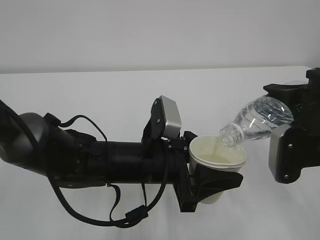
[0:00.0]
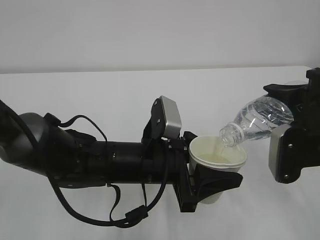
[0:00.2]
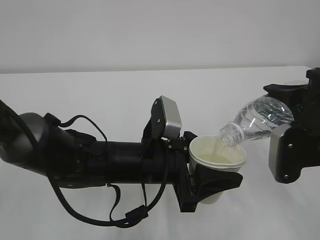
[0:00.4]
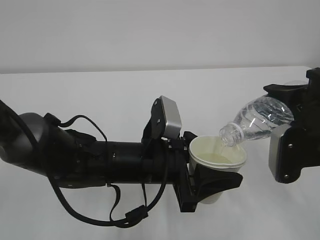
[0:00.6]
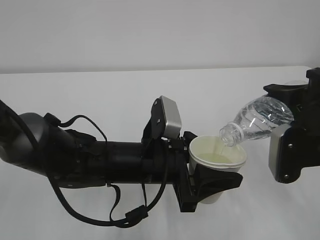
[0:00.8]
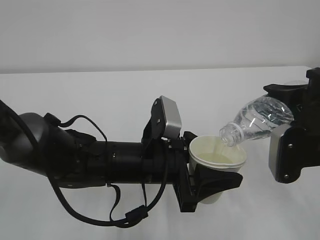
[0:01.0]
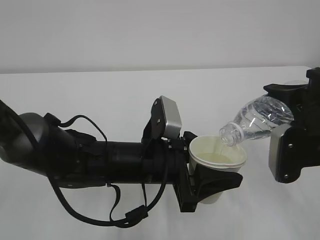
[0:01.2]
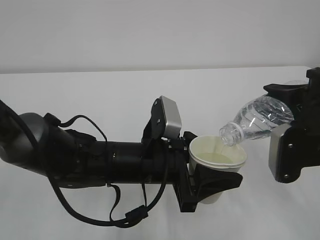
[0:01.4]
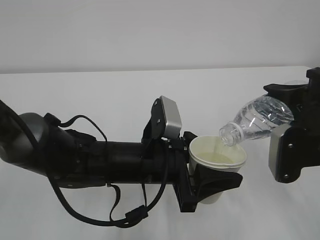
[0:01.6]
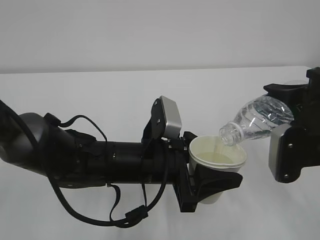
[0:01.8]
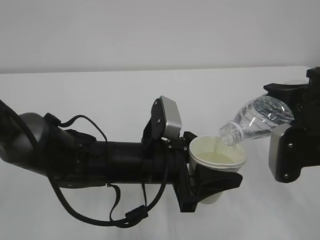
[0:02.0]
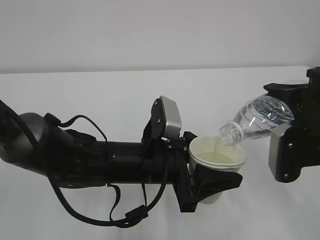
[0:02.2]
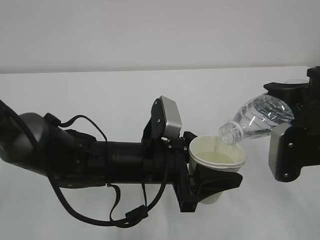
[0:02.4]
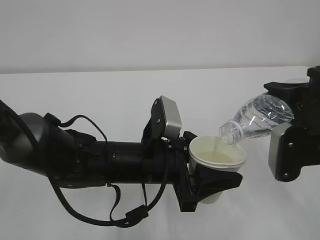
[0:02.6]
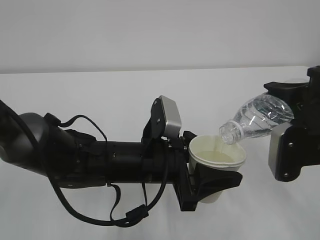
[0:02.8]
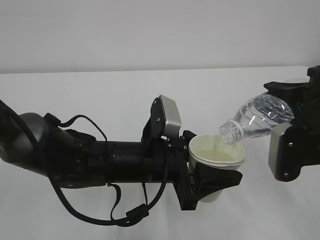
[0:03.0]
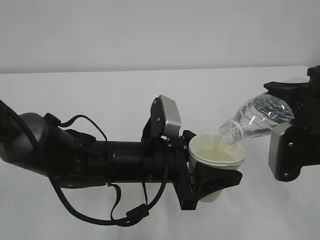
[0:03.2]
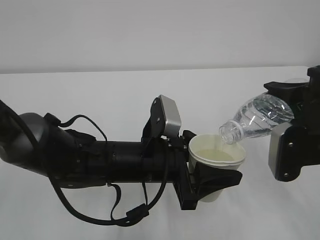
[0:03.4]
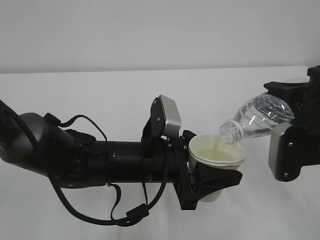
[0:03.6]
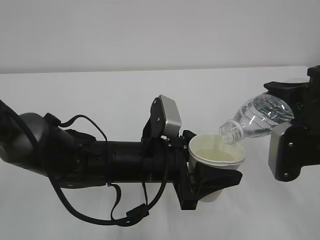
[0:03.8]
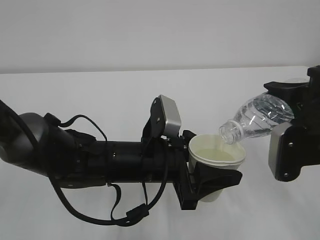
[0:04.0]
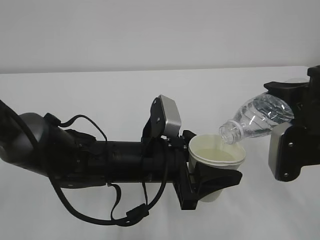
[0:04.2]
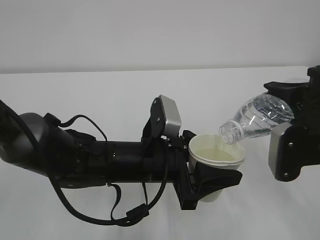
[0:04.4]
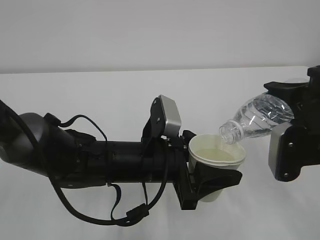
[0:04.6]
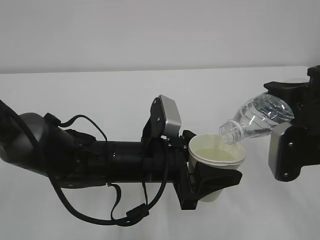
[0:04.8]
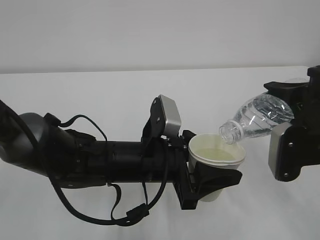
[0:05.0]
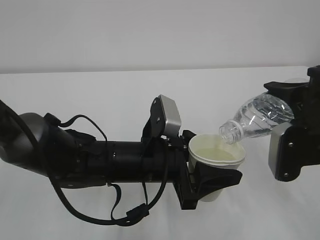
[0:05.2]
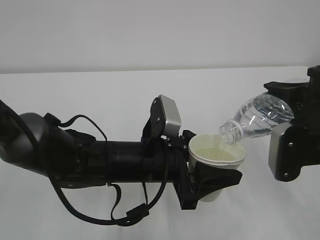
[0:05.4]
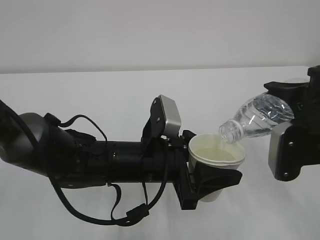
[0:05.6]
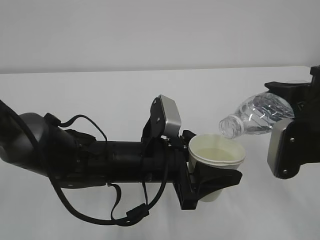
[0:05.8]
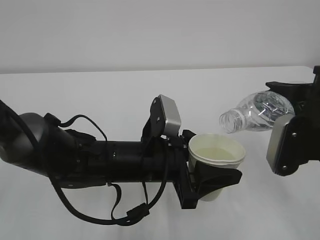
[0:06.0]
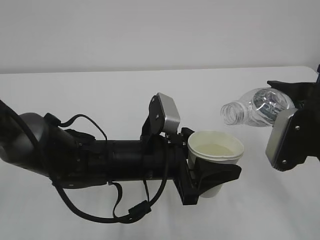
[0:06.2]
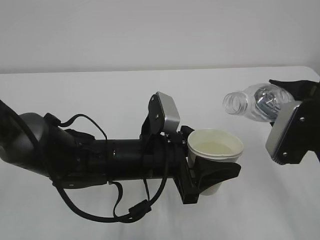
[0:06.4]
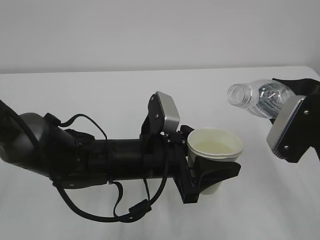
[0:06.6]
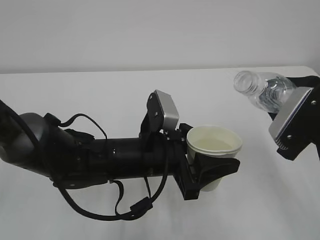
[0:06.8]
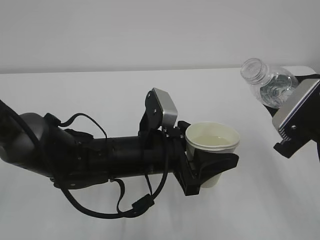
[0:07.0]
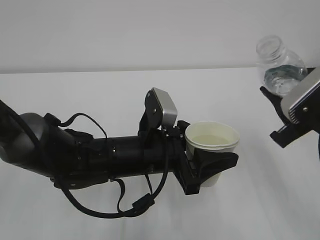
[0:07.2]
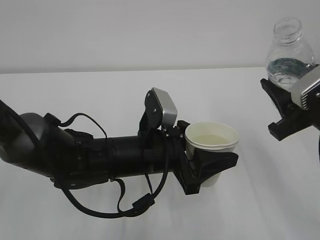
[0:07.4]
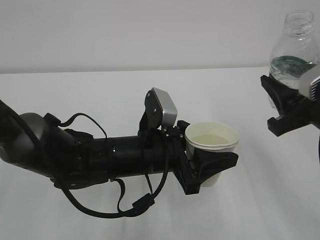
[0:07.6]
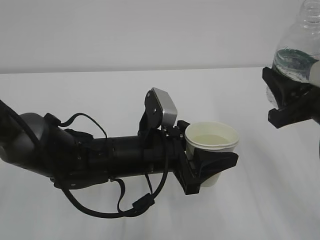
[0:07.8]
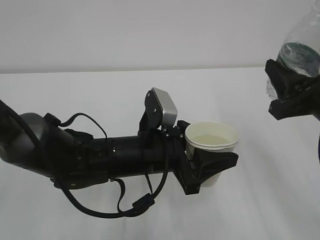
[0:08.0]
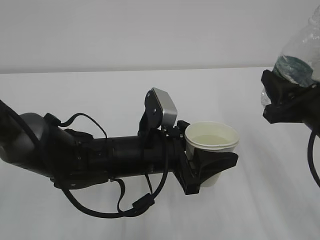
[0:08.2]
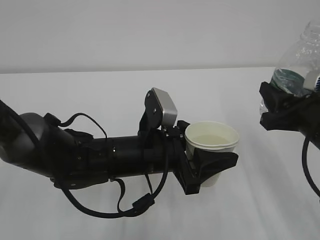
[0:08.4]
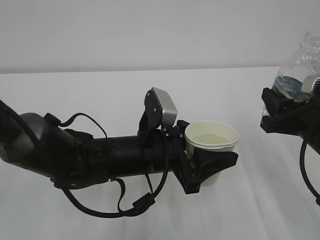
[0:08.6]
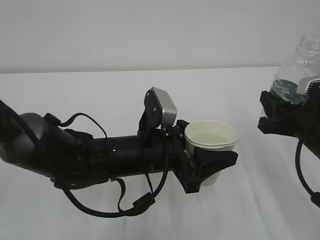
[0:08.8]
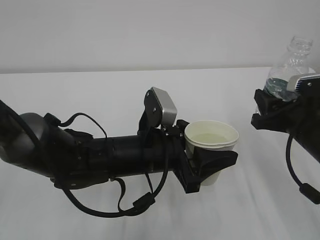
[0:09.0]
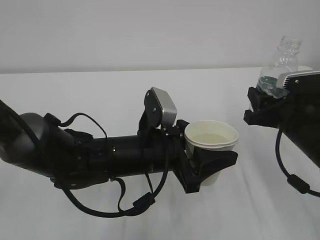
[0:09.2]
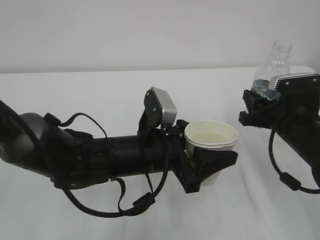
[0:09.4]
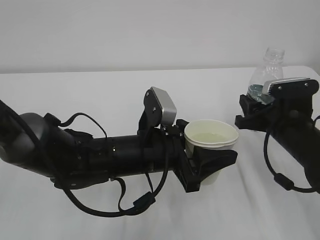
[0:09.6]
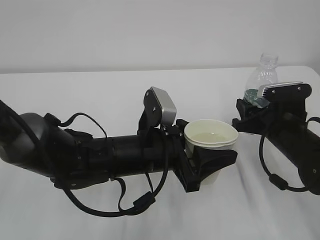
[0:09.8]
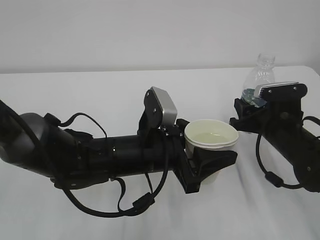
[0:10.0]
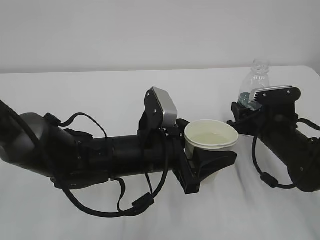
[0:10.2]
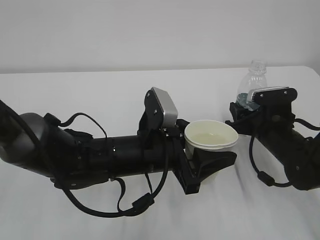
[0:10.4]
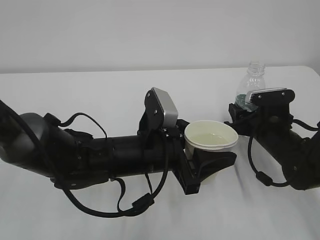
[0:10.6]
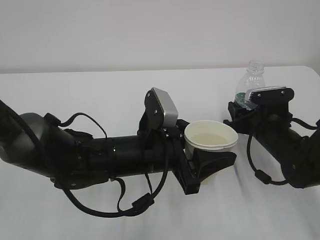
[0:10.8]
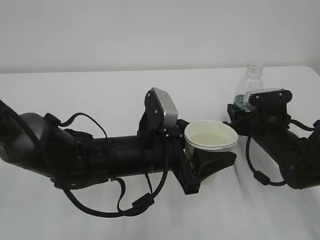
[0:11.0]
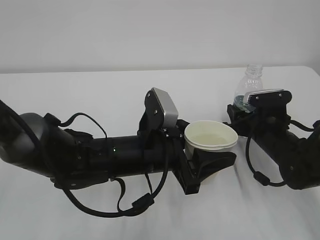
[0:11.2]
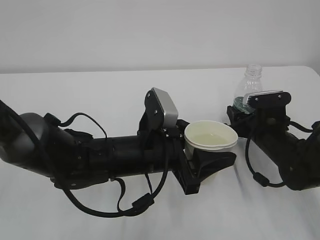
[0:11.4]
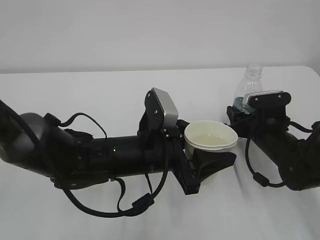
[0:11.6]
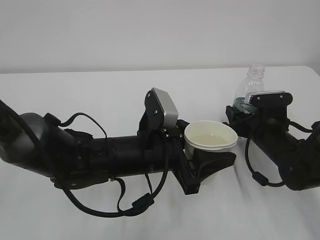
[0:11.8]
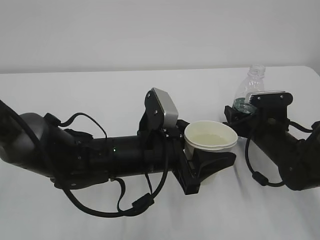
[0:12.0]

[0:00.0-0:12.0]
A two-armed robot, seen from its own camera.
0:00.0 to 0:04.4: Both grippers stay about where they are.
0:04.4 to 0:06.0: There are only small adjustments of the grippers.
0:07.6 to 0:09.0: The right gripper moves downward, some 5 cm.
0:09.0 to 0:10.4: The right gripper moves downward and forward, roughly 10 cm.
0:10.4 to 0:12.0: The right gripper opens.

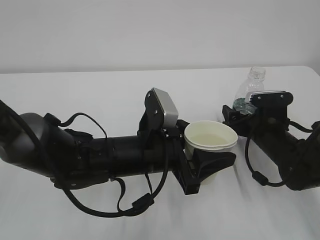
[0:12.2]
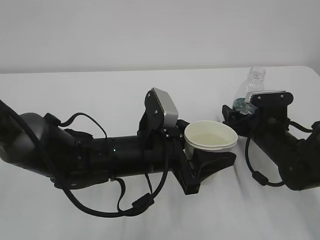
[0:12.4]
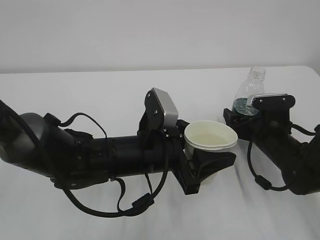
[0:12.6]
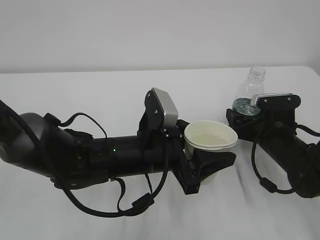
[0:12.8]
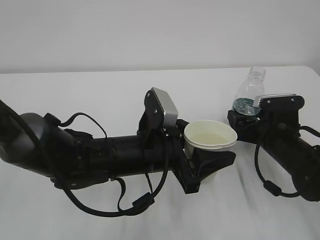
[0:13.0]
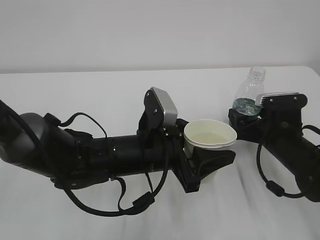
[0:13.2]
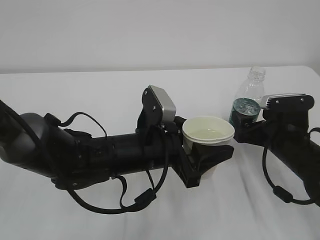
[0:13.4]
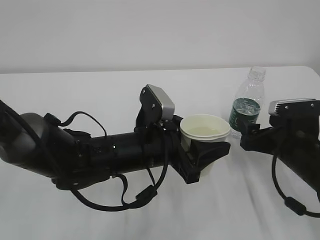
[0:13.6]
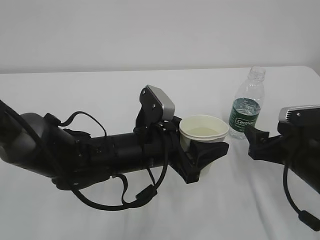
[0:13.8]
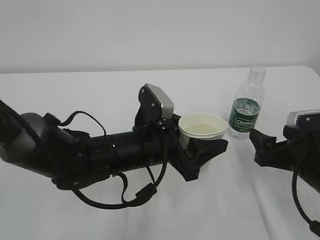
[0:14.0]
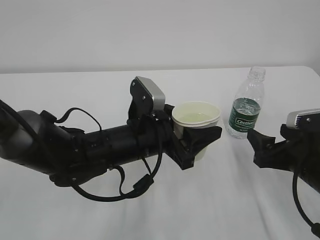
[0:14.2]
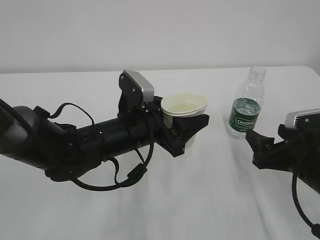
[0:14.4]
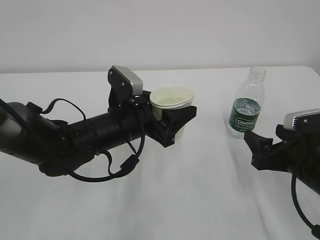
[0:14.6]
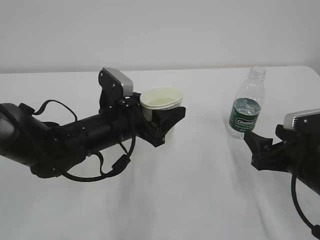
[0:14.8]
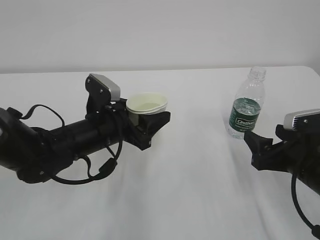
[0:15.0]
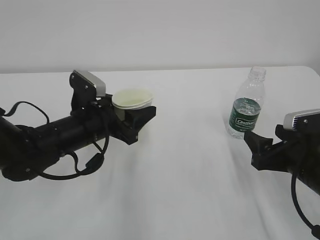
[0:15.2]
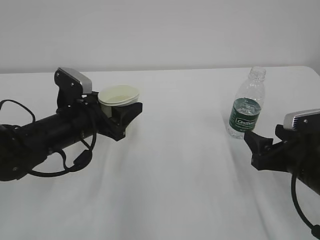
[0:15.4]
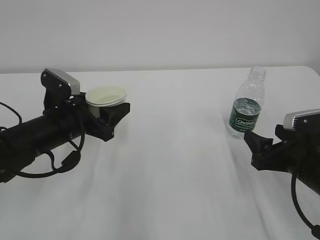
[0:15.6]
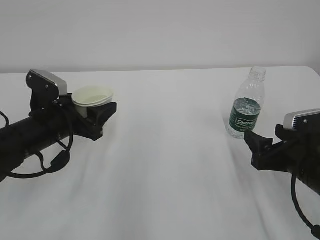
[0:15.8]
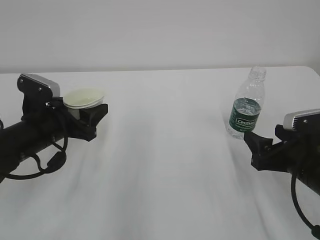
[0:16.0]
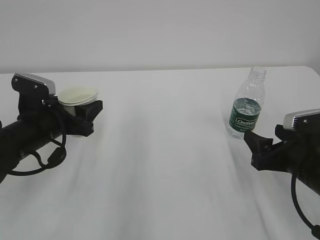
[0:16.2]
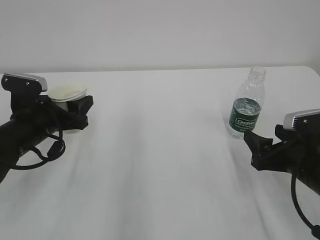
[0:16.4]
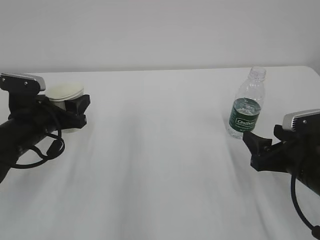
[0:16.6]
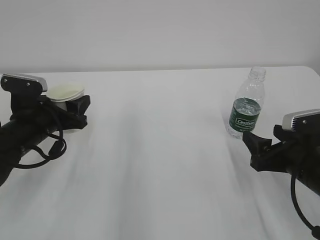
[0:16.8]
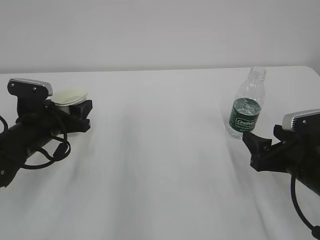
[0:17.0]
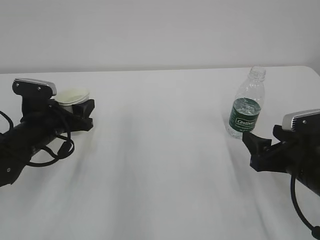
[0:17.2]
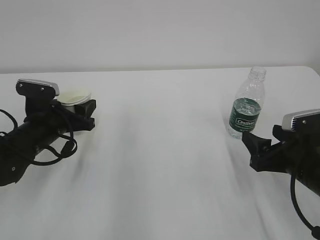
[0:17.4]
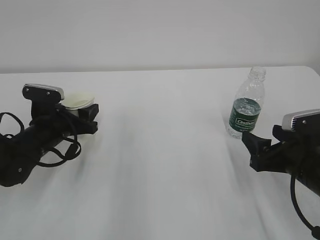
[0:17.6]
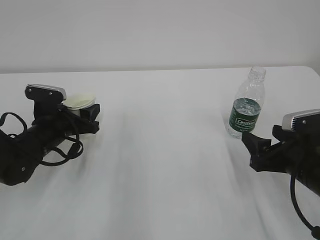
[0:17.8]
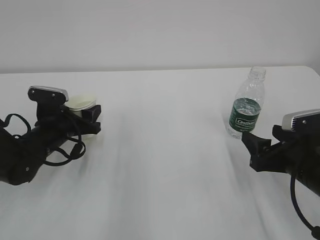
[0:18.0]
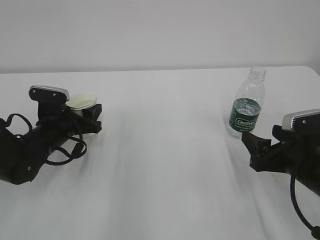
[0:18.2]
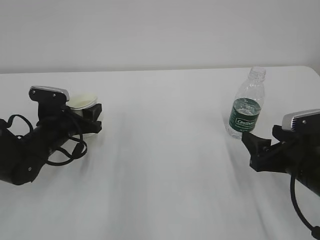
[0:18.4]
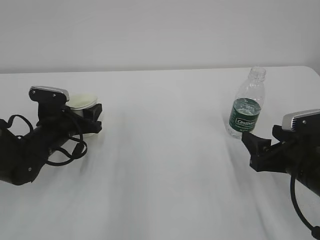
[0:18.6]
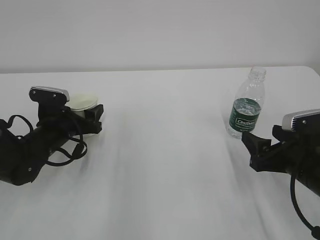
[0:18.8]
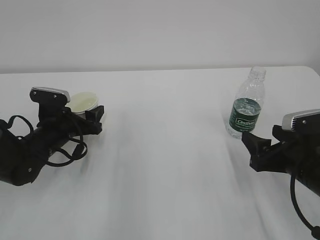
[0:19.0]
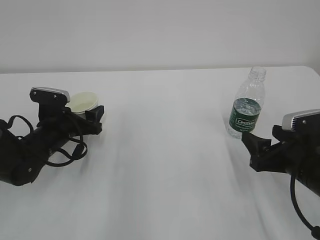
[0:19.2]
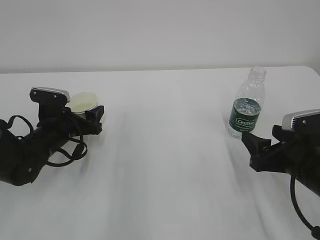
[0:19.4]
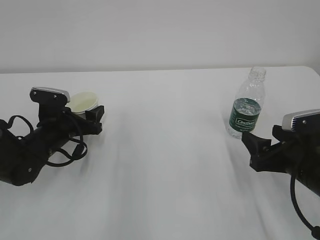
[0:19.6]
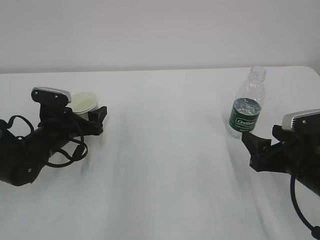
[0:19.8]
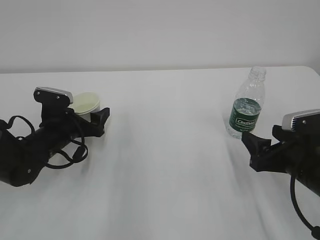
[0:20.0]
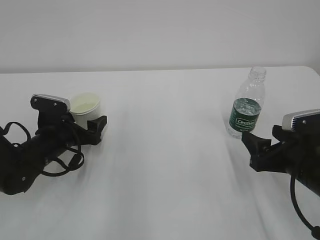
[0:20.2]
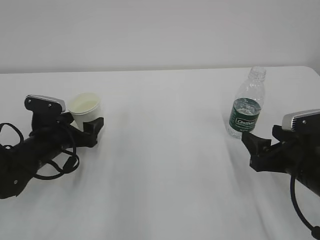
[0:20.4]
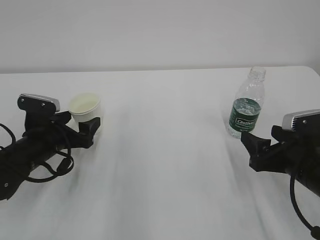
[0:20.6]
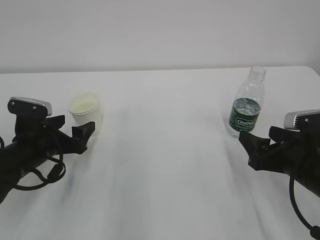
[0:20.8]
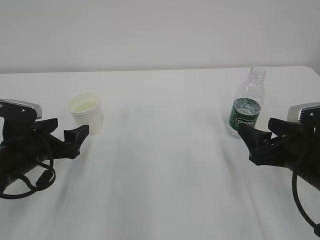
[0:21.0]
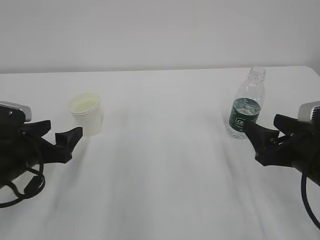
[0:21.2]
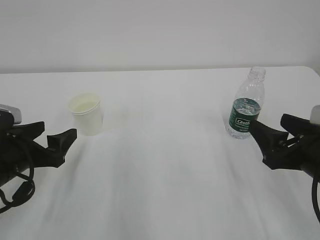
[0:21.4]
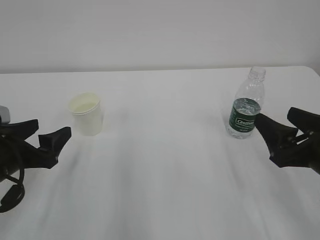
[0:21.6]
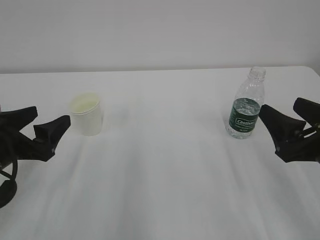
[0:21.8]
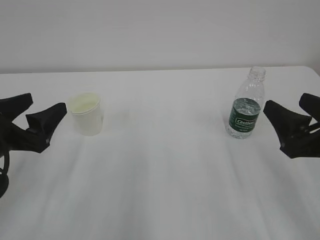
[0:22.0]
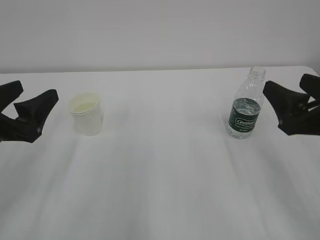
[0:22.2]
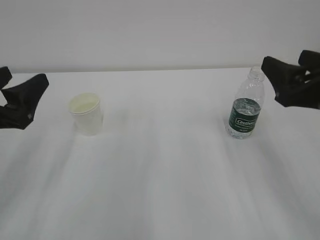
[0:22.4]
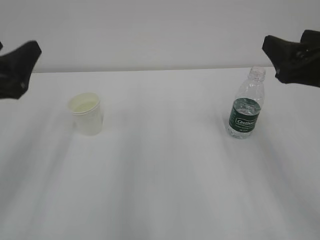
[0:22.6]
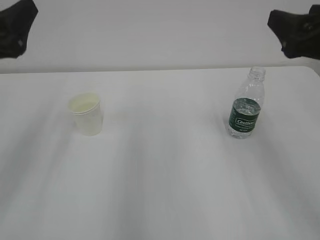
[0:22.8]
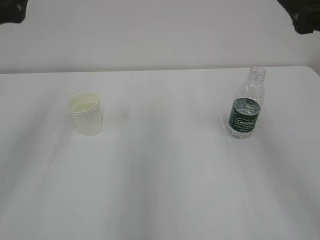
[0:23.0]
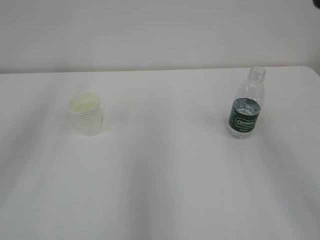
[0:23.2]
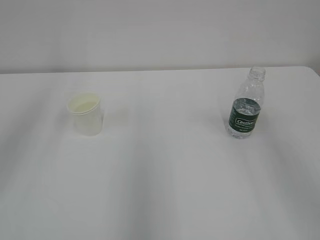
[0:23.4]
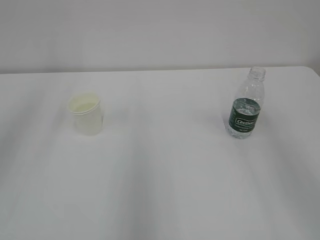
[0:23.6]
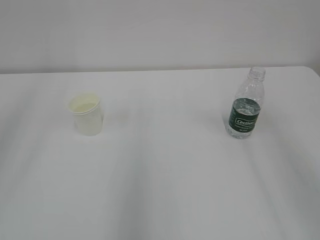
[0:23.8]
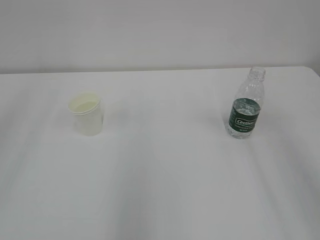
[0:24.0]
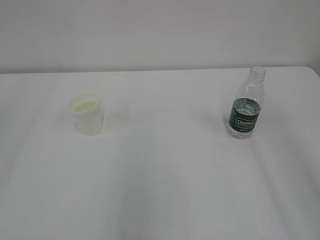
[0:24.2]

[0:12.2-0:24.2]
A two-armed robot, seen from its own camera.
0:12.2 to 0:13.8: The right gripper heads backward, covering some 10 cm.
0:13.8 to 0:15.2: The left gripper heads to the left, covering roughly 10 cm.
0:15.2 to 0:16.6: The left gripper goes approximately 10 cm to the left.
0:16.6 to 0:18.2: The left gripper shifts about 5 cm downward.
0:18.2 to 0:19.8: The left gripper opens up.
0:19.8 to 0:21.2: The left gripper is displaced backward by approximately 10 cm.
0:21.2 to 0:22.6: Both grippers move upward, about 15 cm.
0:22.6 to 0:24.2: The grippers both shift upward and backward by approximately 25 cm.
